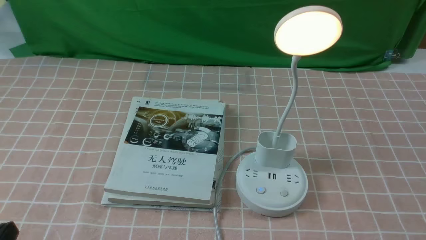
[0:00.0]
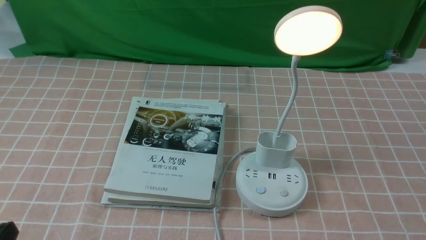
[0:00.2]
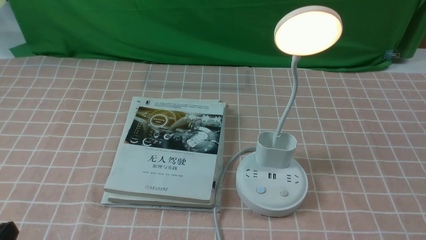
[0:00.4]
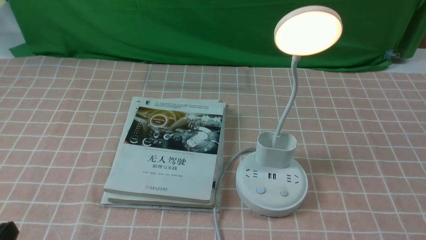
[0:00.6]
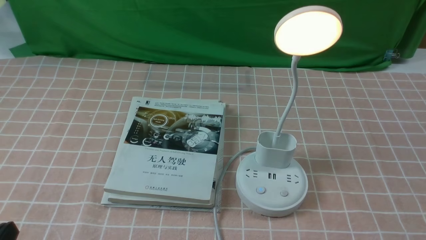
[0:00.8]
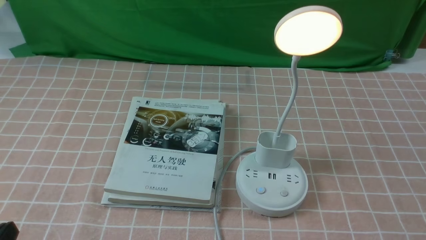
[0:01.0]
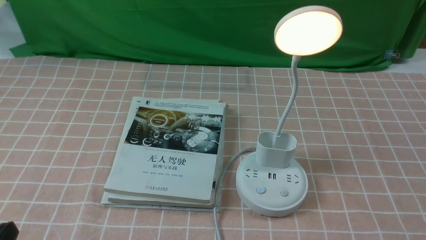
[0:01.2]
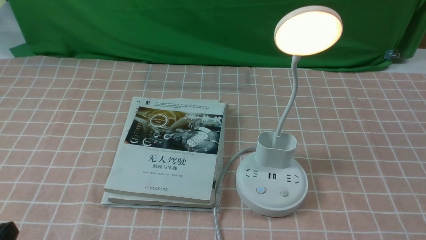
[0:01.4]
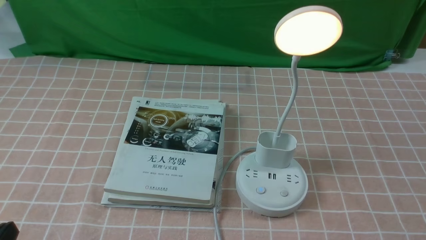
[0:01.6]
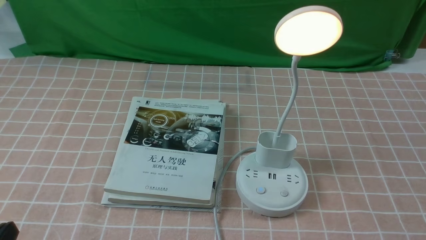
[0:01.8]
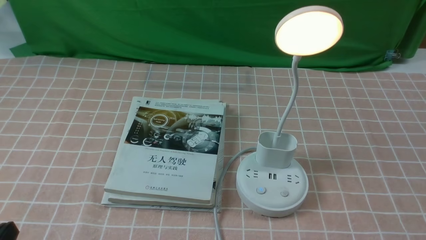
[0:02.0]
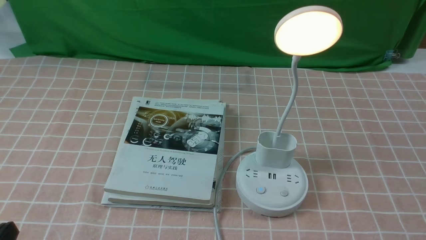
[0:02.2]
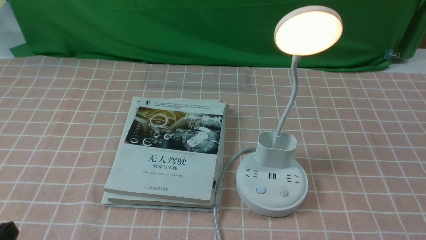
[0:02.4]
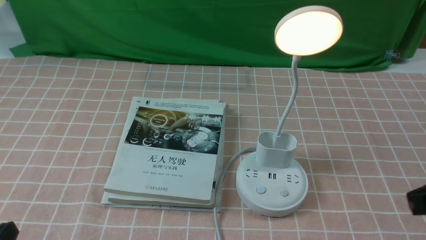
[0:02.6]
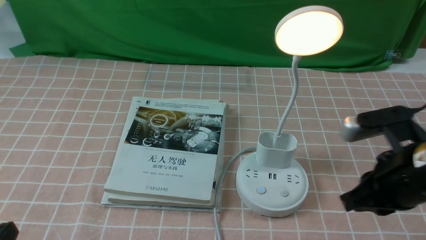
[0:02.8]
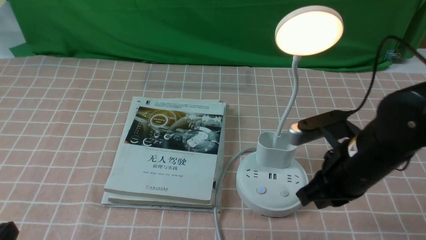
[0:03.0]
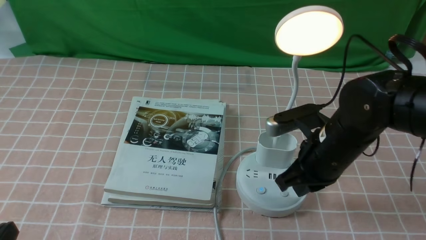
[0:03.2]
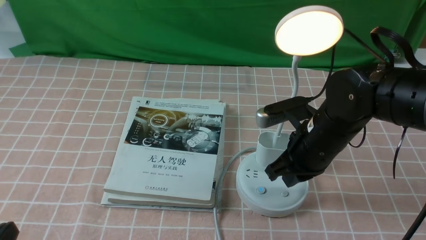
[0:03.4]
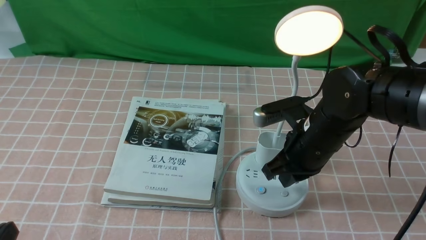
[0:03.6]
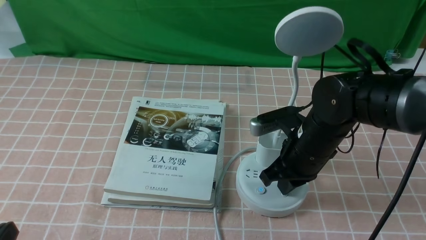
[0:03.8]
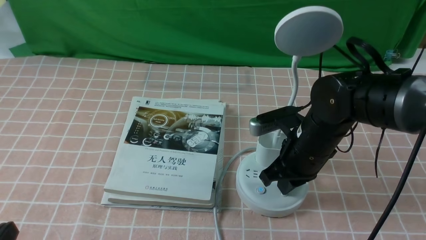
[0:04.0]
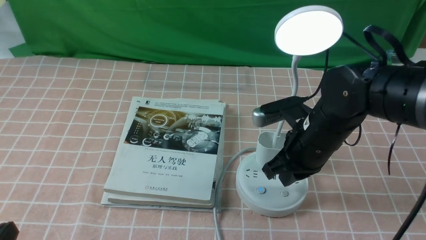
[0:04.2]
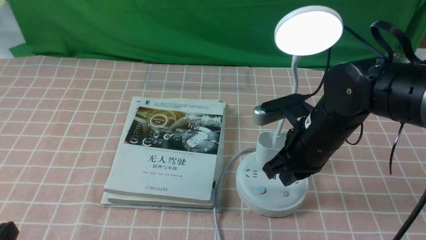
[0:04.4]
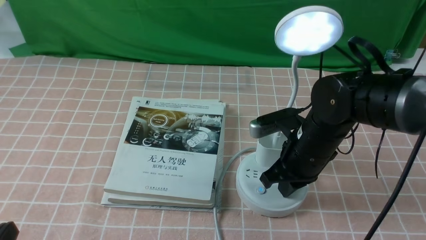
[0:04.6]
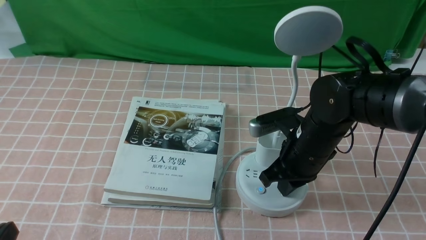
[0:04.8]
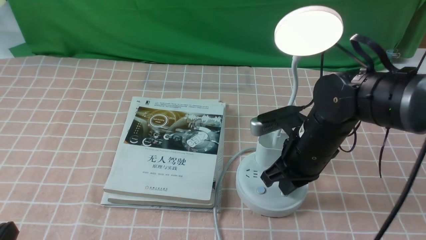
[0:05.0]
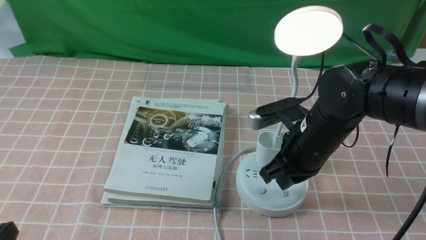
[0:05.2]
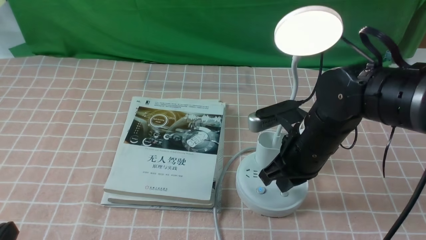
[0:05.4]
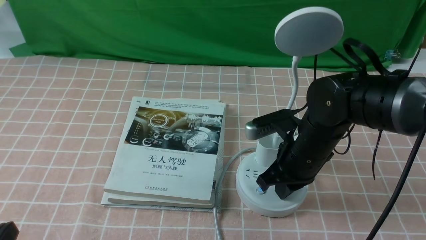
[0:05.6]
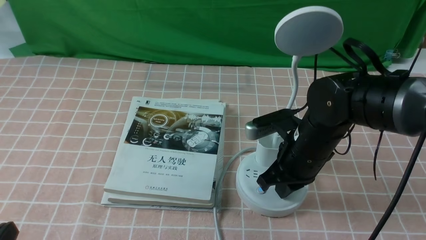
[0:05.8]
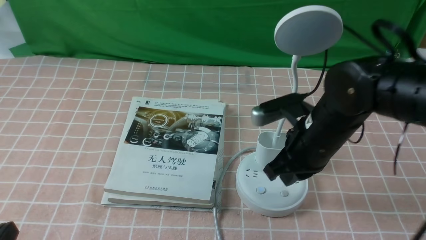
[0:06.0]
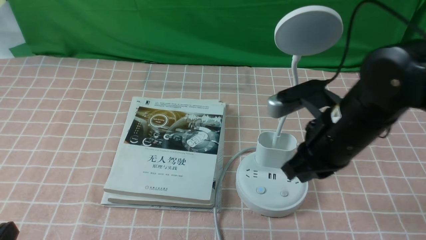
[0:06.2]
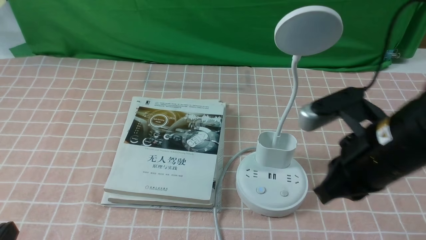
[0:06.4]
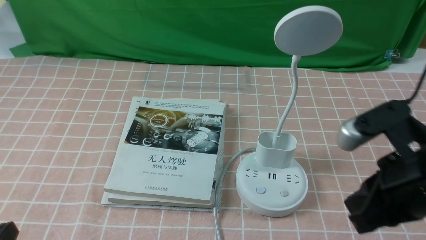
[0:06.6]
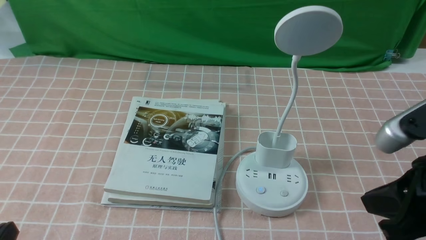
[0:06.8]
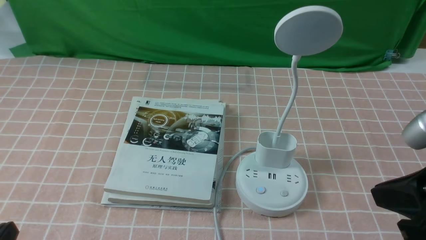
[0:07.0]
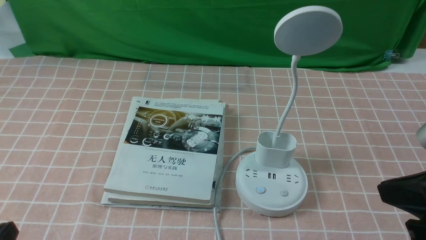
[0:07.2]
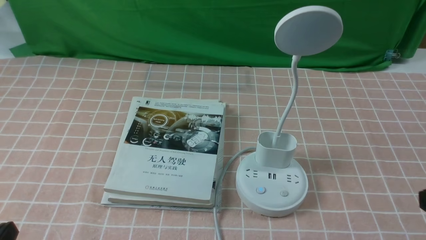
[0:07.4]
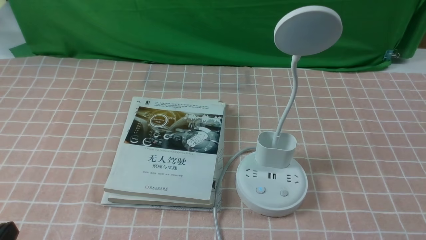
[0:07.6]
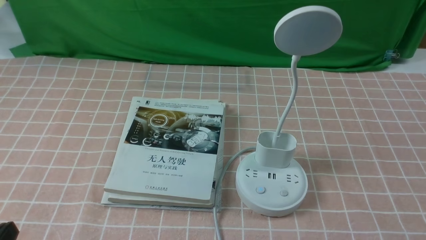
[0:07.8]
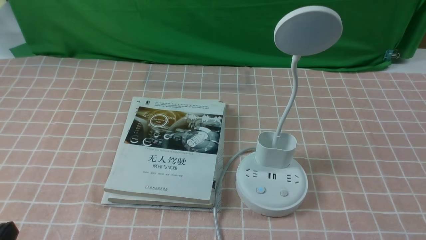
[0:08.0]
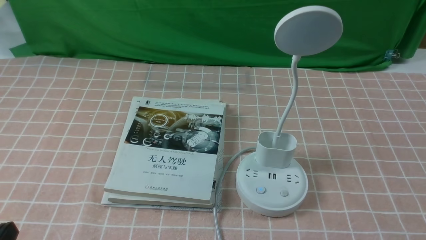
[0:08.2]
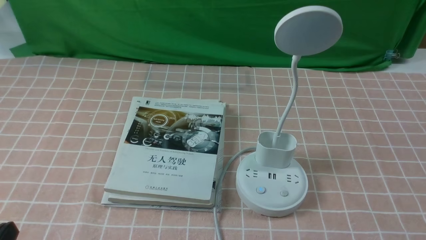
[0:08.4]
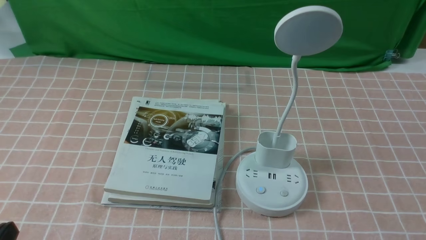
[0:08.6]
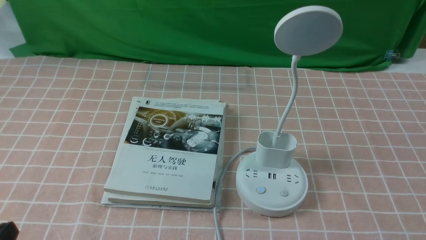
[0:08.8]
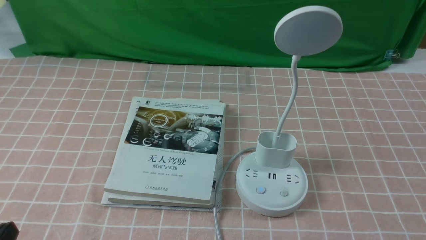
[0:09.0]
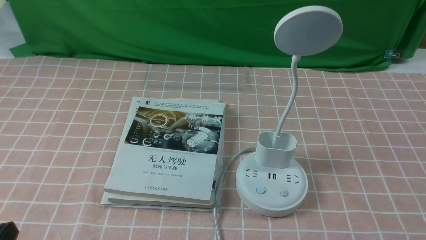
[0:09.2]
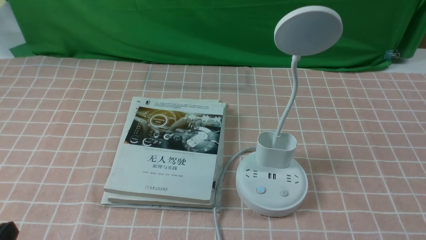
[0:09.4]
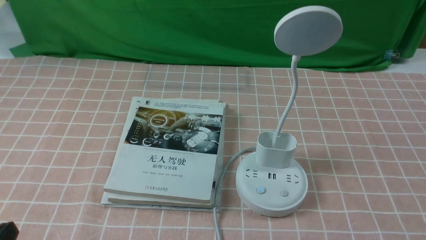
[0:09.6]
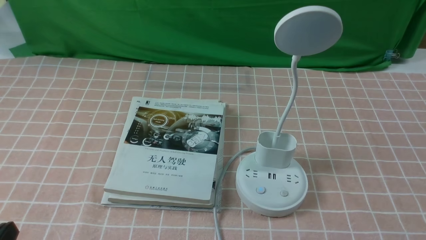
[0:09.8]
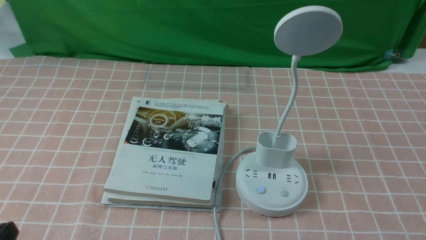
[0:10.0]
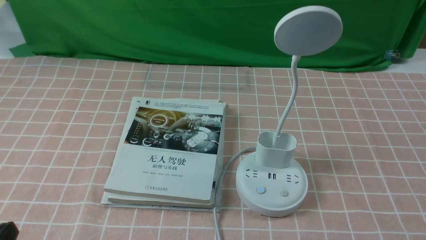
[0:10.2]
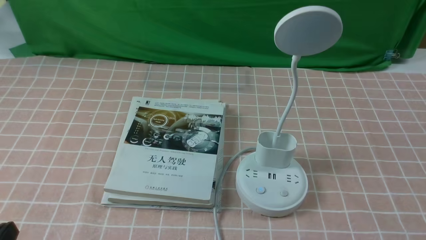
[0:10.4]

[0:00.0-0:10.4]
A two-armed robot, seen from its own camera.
Task of the whole recording: turn off the table lamp on the pink coffee tablecloth by hand.
Step, 0:00.0 to 0:05.8: use the right arm to press the button switch on the lamp holder.
0:01.4 to 0:03.0: The right gripper shifts roughly 25 cm forward and to the left, and closes its fingers.
0:03.0 to 0:04.4: The right gripper travels forward by about 5 cm.
0:04.4 to 0:06.0: The grippers stay close to where they were, moving slightly.
0:06.0 to 0:07.4: The right gripper goes about 25 cm backward and to the right.
